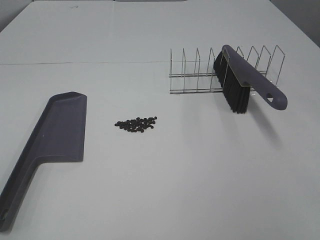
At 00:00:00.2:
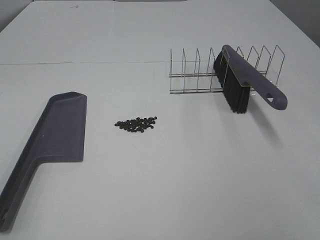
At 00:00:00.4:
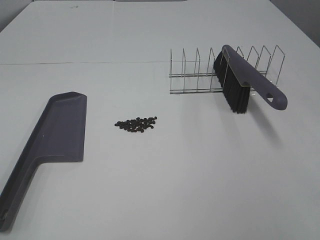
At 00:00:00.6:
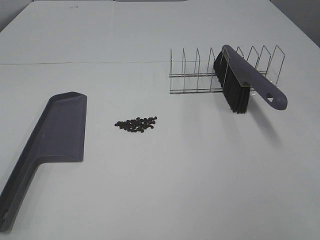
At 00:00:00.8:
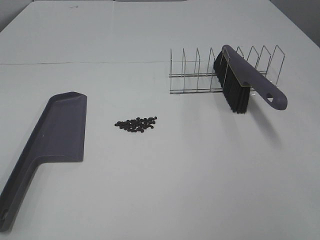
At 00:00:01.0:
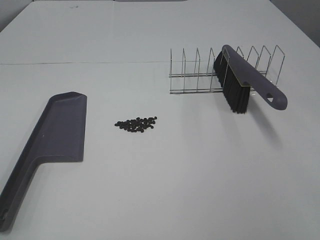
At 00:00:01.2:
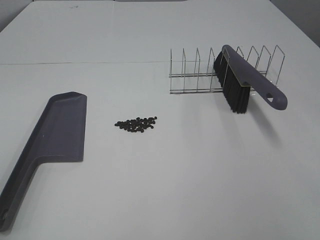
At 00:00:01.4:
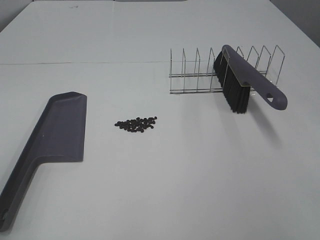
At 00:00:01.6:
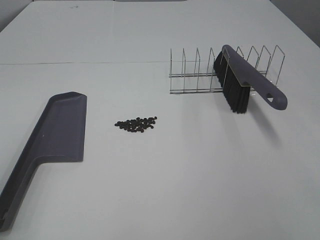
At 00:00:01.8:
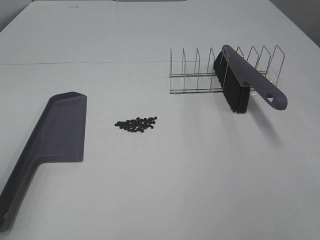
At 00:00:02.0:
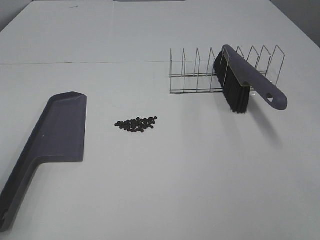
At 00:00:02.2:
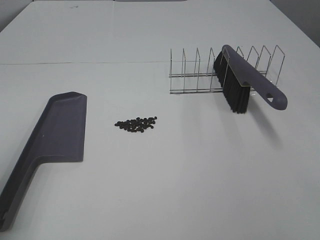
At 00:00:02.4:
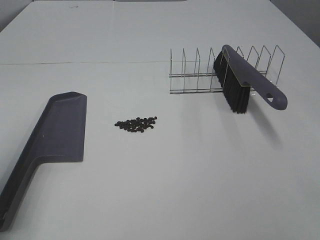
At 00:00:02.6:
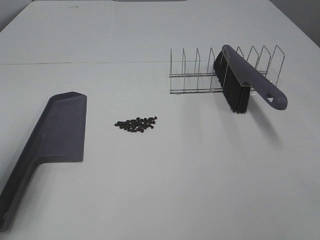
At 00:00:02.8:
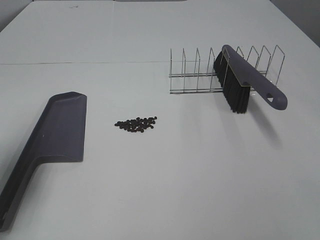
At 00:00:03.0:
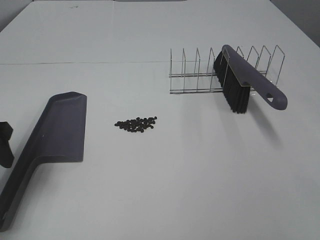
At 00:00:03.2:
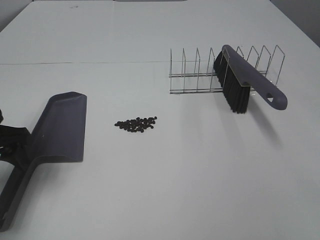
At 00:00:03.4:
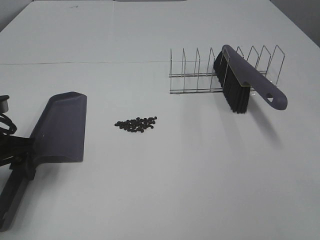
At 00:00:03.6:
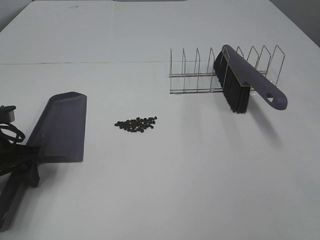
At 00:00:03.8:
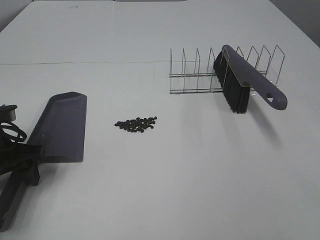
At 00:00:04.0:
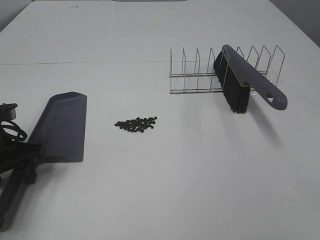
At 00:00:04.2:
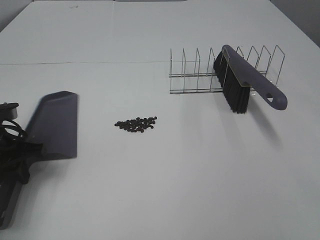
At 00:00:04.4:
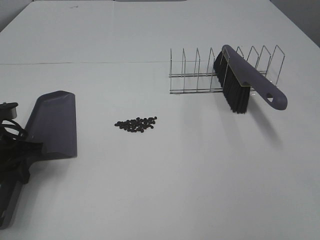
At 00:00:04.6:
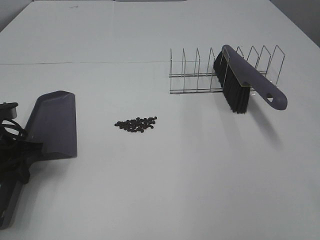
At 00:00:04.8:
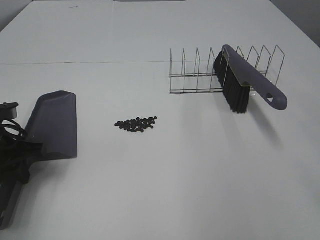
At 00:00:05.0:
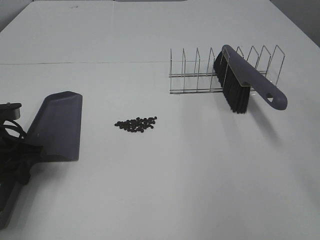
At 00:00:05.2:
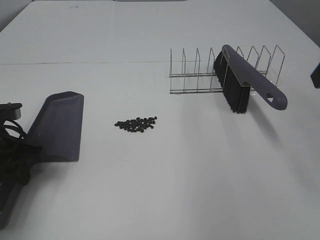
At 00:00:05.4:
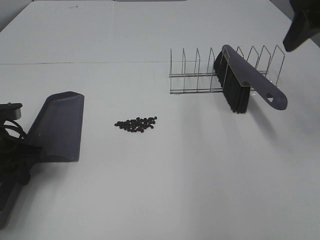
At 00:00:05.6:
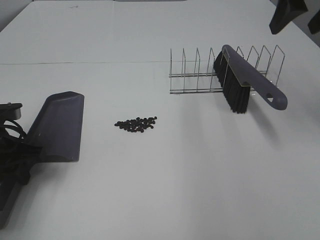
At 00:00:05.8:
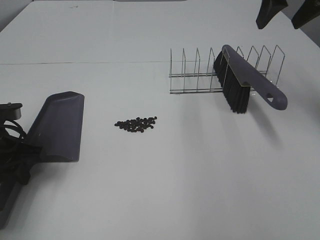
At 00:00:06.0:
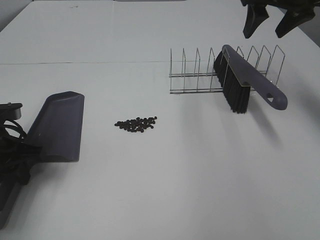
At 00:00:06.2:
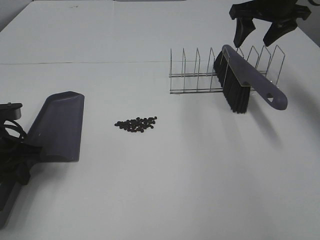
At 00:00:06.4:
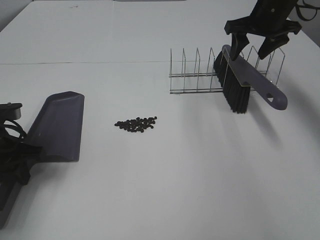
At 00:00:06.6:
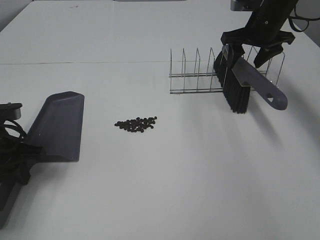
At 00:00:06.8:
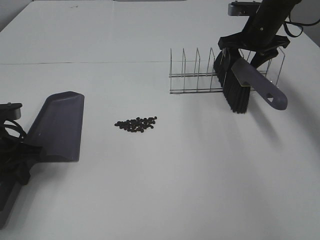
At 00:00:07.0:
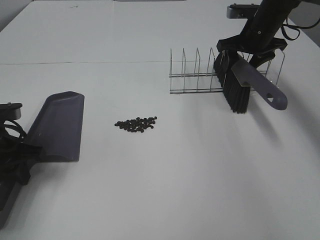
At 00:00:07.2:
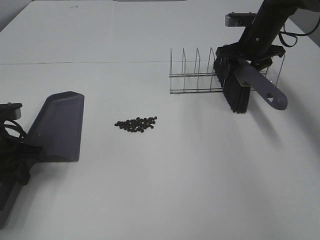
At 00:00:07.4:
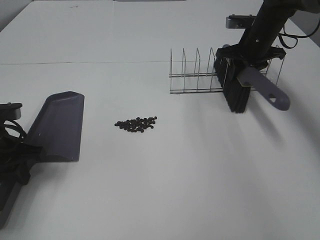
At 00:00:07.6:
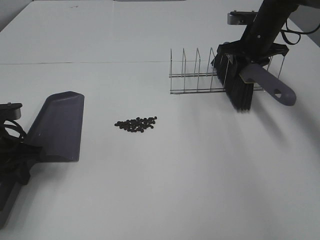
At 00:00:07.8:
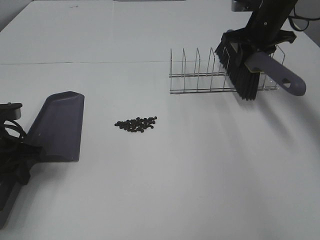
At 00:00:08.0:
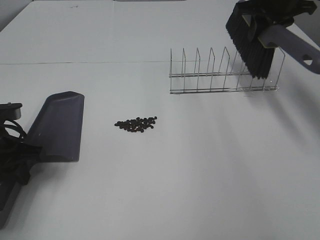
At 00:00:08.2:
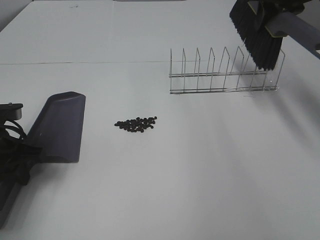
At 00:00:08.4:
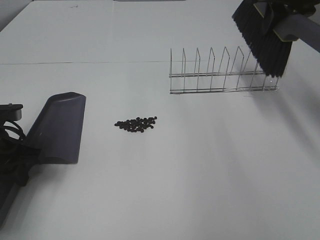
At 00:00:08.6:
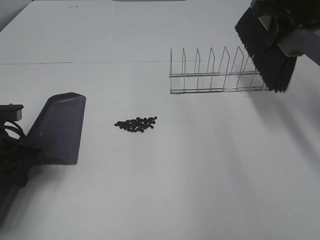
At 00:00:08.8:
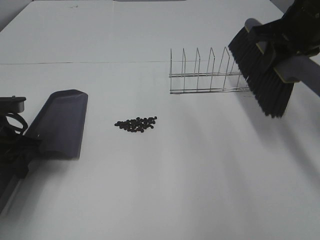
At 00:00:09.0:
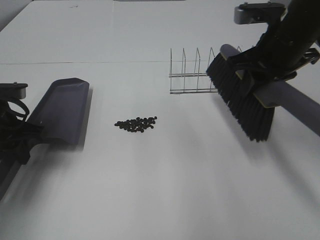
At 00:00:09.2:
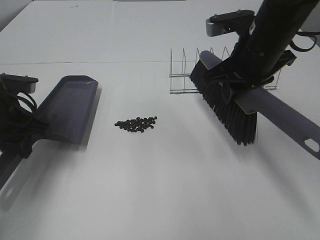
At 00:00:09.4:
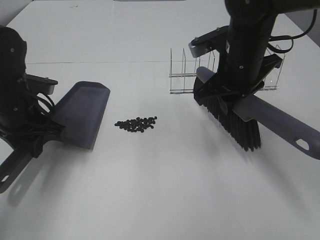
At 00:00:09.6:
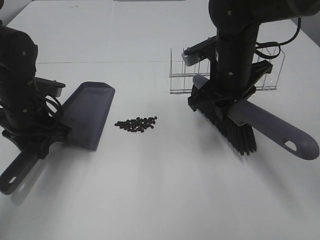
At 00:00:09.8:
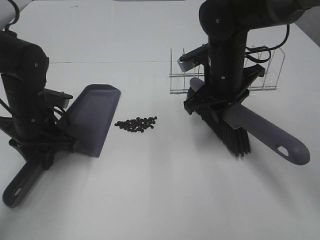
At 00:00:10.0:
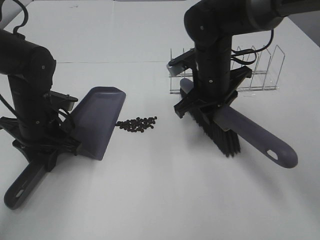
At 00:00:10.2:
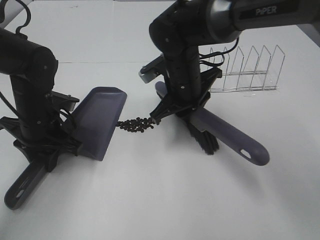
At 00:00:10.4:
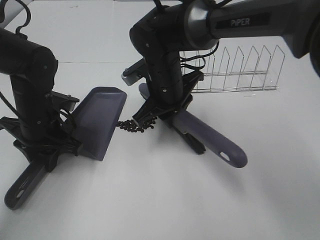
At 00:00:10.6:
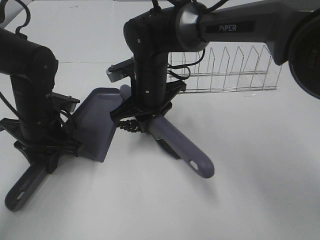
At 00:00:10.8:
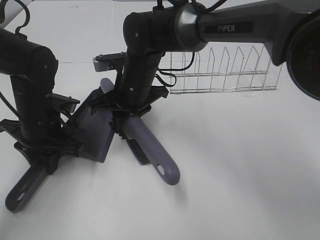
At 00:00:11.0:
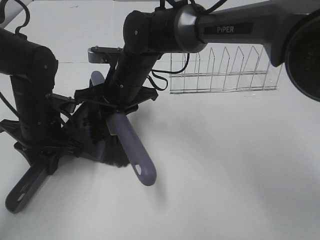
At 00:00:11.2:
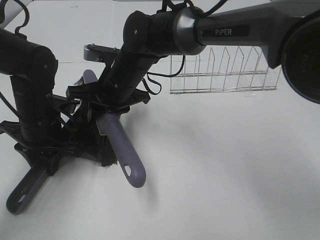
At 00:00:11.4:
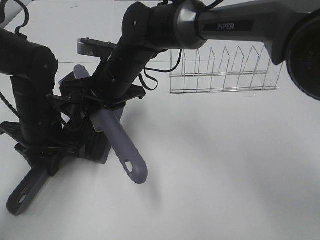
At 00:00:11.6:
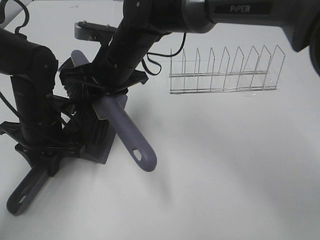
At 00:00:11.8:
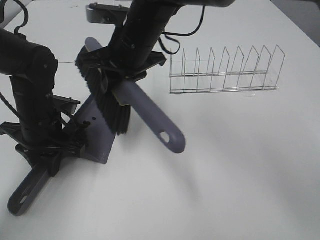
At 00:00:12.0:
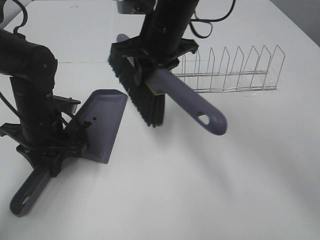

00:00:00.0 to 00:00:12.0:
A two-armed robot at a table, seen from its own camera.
Task of the whole recording: Sweep Coffee Bean.
Step, 00:00:00.0 to 00:00:04.2: Left hand: grab the dustpan.
Step, 00:00:04.2 to 00:00:07.4: Right hand:grab the broom.
Step, 00:00:07.6 to 00:00:11.4: Right hand:sweep the coffee beans into the dustpan.
00:00:01.6 to 00:00:03.0: The left gripper heads forward and downward, covering approximately 20 cm.
00:00:03.0 to 00:00:04.4: The left gripper heads downward, covering some 10 cm, and closes its fingers.
00:00:04.4 to 00:00:06.0: The right gripper goes some 40 cm forward.
00:00:06.0 to 00:00:07.6: The right gripper travels downward and forward by some 15 cm, and closes its fingers.
00:00:07.6 to 00:00:09.0: The right gripper travels backward and upward by roughly 20 cm.
00:00:09.0 to 00:00:10.4: The left gripper travels to the right by about 5 cm. The right gripper goes approximately 20 cm to the left and downward.
00:00:10.4 to 00:00:12.0: The right gripper travels upward by about 10 cm.

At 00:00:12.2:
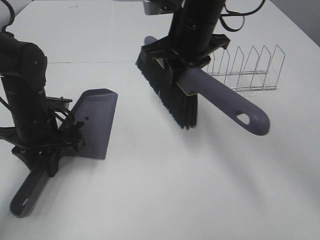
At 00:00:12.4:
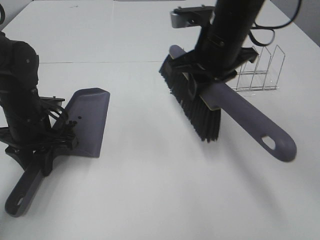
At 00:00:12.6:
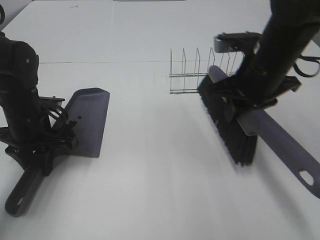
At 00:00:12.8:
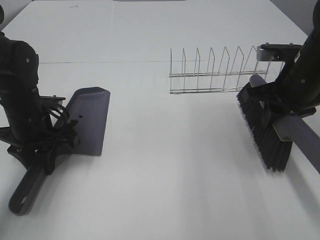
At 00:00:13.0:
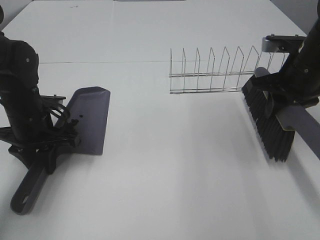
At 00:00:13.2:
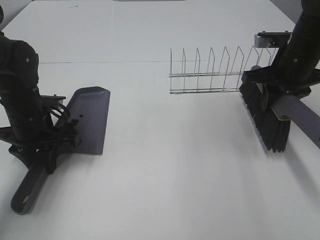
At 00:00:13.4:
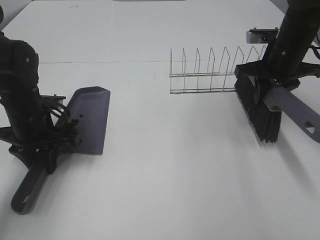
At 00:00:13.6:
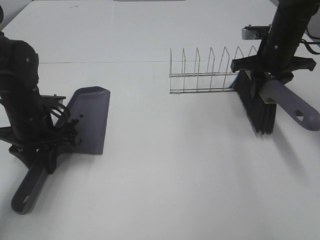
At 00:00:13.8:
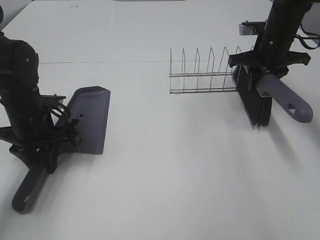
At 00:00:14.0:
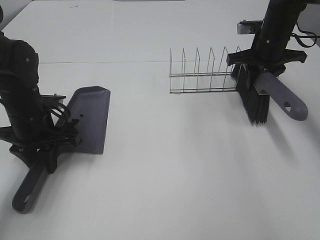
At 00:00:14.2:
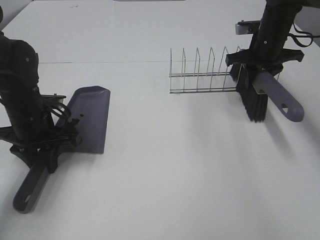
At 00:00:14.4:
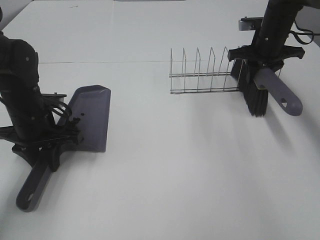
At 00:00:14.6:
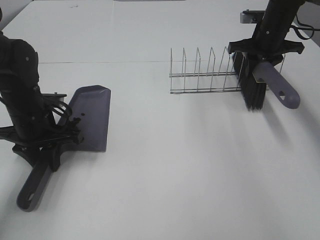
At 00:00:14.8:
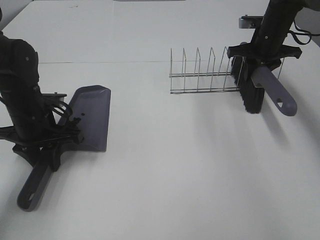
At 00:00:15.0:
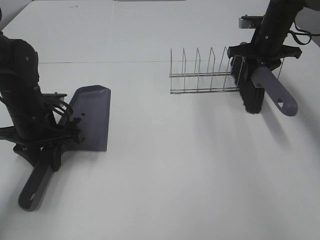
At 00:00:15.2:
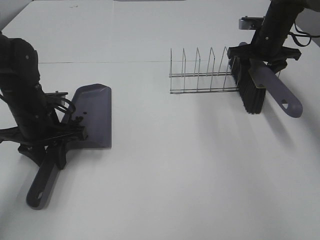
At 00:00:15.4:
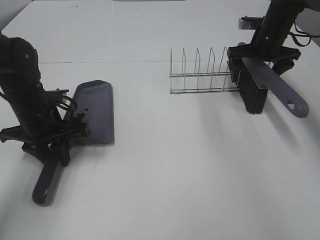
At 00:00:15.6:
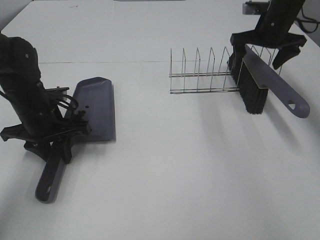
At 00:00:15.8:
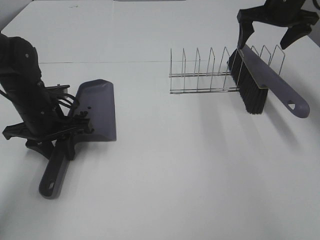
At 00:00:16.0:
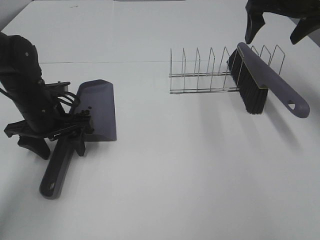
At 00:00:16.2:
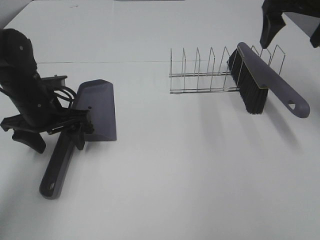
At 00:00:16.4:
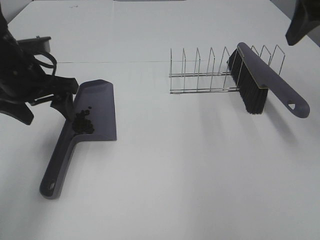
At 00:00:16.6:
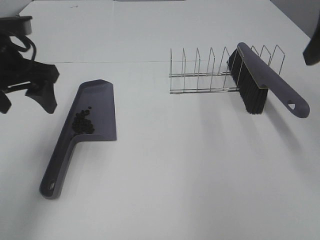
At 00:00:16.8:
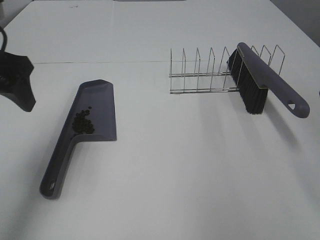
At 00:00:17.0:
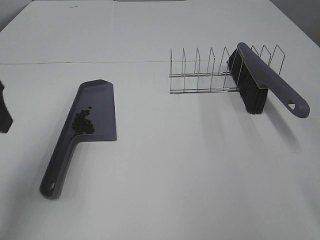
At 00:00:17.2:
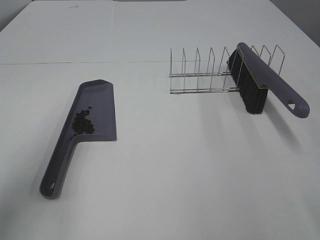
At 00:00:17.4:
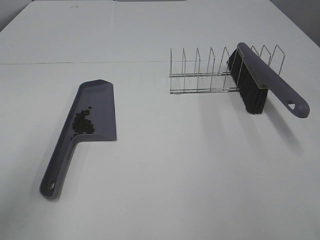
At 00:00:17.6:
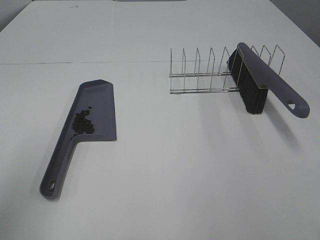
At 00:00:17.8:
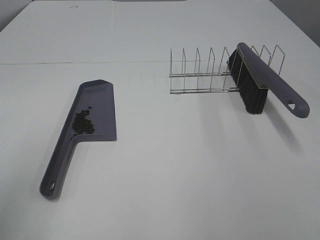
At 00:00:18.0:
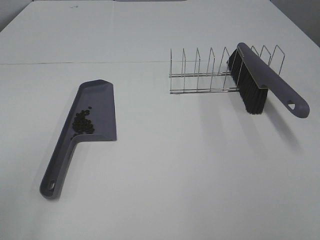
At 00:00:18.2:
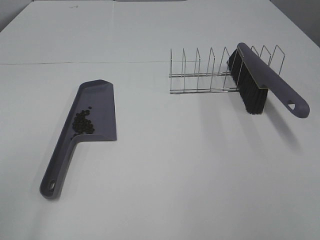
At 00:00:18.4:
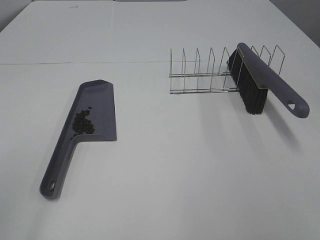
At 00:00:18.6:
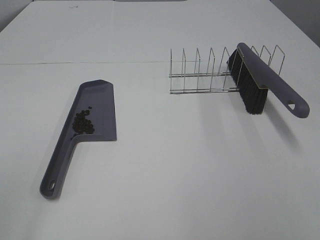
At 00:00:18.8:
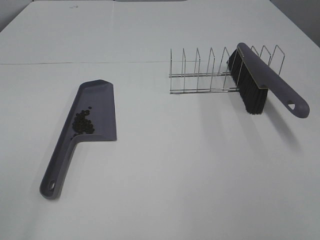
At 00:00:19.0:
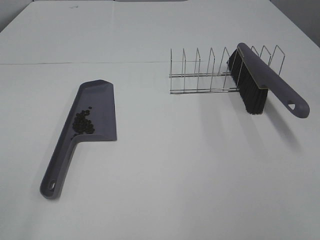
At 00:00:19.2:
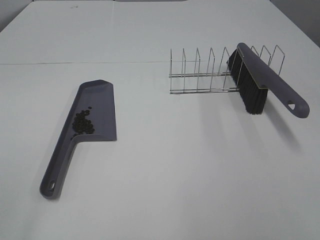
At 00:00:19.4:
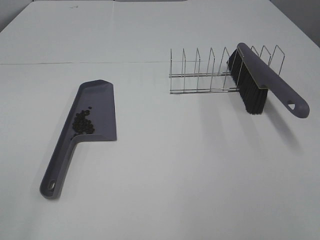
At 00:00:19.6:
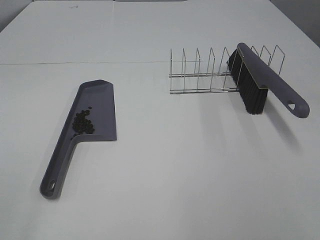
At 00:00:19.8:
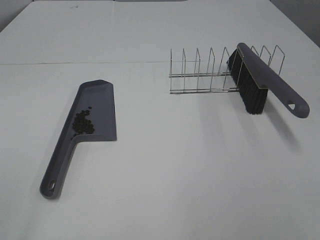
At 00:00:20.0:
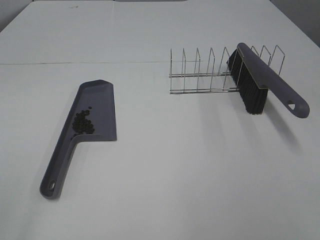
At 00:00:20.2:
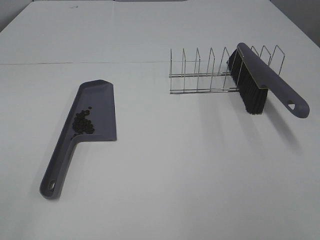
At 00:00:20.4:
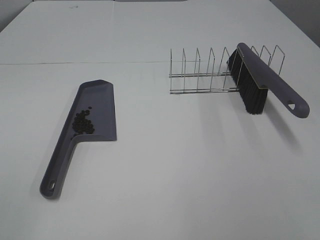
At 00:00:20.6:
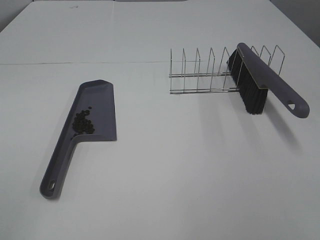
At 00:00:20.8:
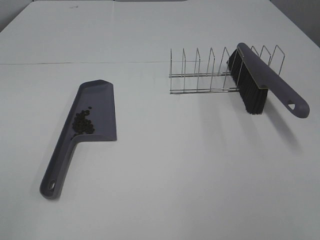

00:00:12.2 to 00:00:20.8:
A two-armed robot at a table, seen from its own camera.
Task of the whole recording: Sweep Coffee Bean.
Step, 00:00:12.2 to 00:00:15.2: Right hand:place the broom on the rack.
00:00:12.2 to 00:00:13.6: The right gripper is displaced to the right by approximately 20 cm.
00:00:13.6 to 00:00:15.0: The right gripper moves forward, approximately 5 cm.
00:00:15.0 to 00:00:16.6: The left gripper moves upward, roughly 15 cm, and opens. Meanwhile the right gripper heads backward and upward, covering about 35 cm, and opens.
00:00:16.6 to 00:00:18.0: The left gripper shifts roughly 25 cm backward.
